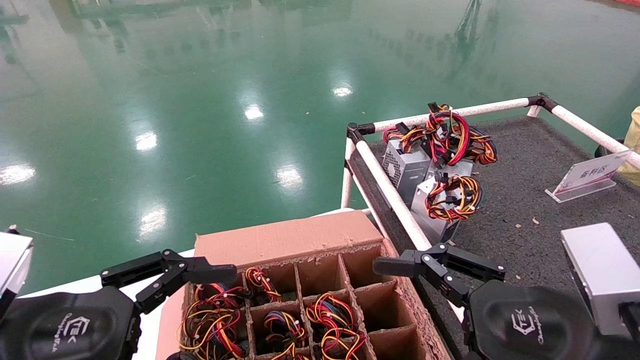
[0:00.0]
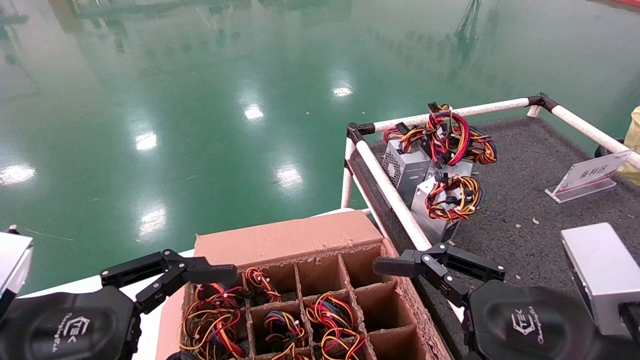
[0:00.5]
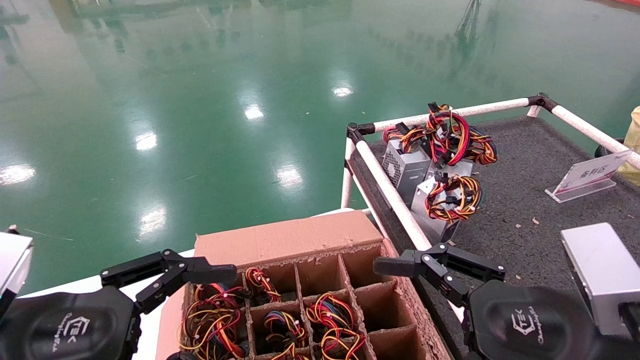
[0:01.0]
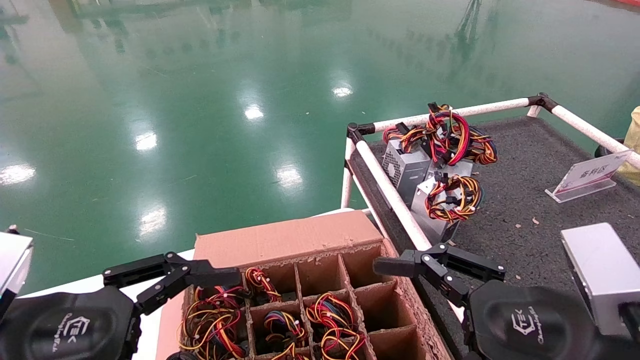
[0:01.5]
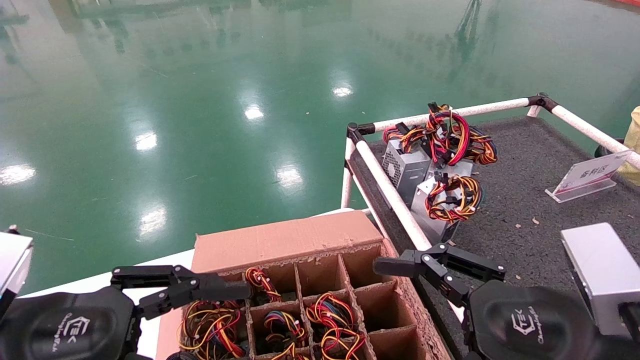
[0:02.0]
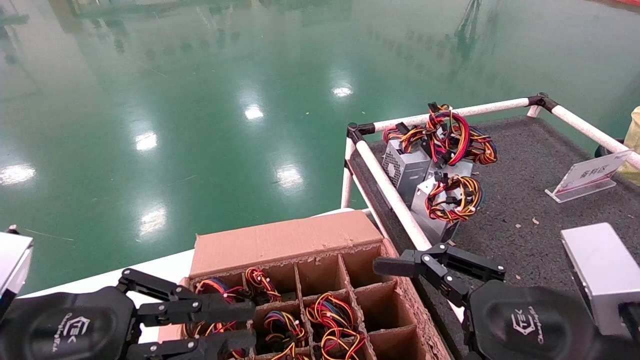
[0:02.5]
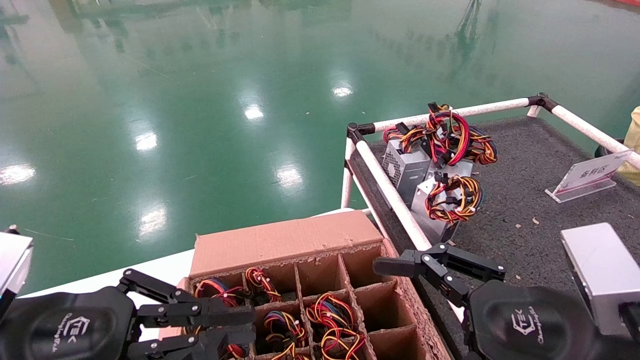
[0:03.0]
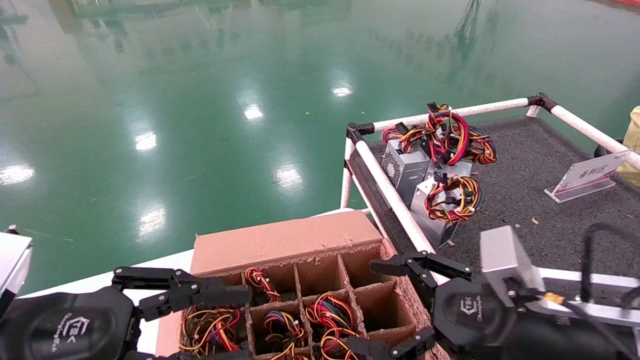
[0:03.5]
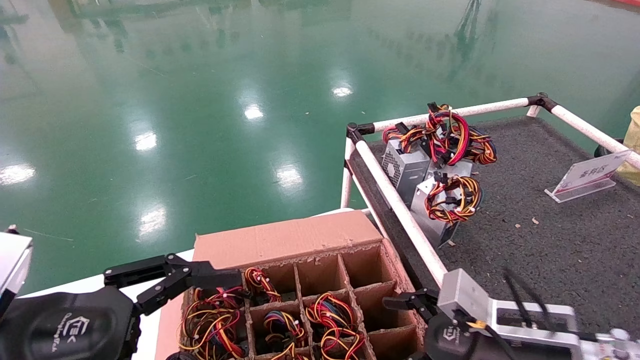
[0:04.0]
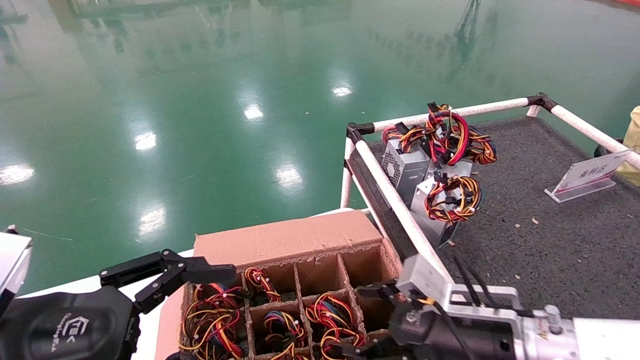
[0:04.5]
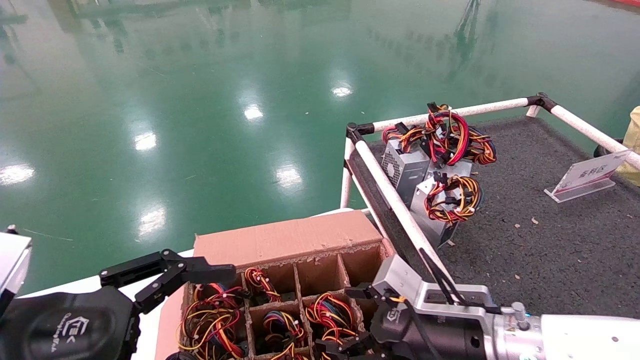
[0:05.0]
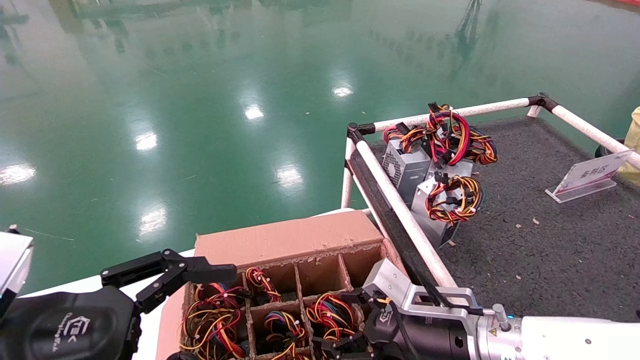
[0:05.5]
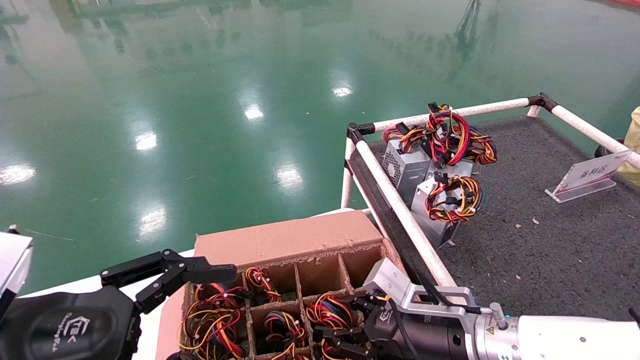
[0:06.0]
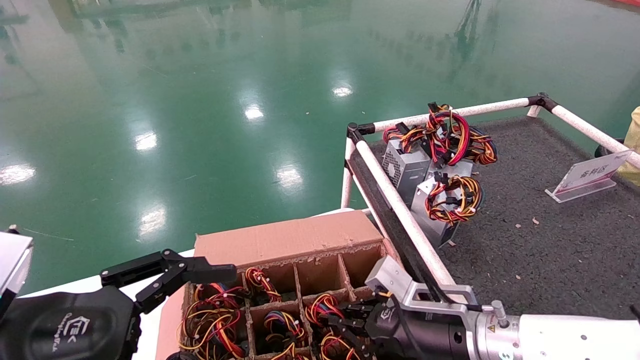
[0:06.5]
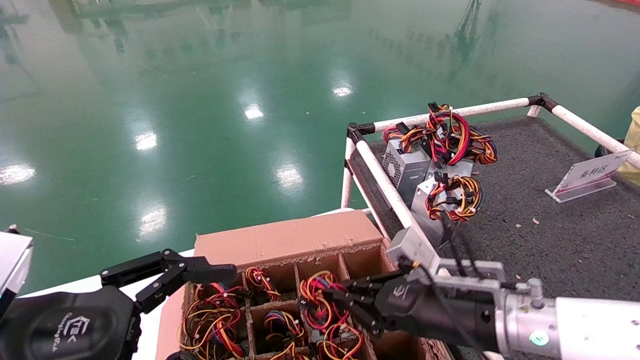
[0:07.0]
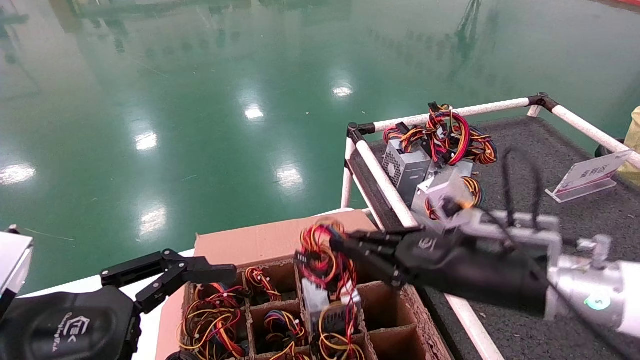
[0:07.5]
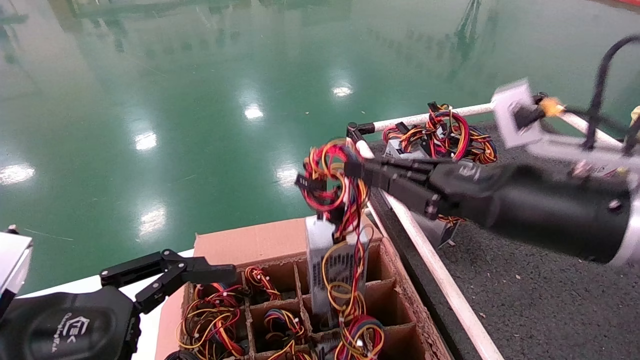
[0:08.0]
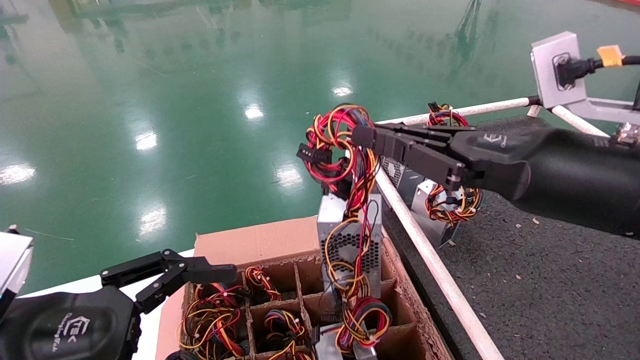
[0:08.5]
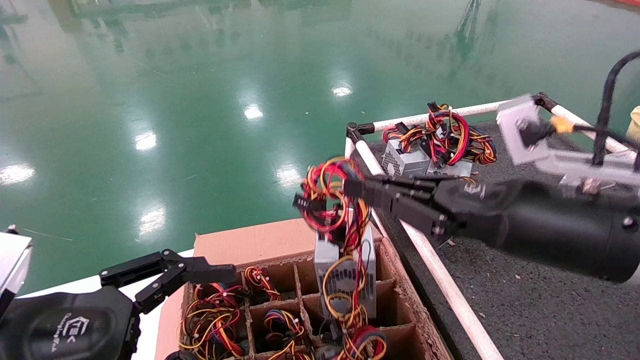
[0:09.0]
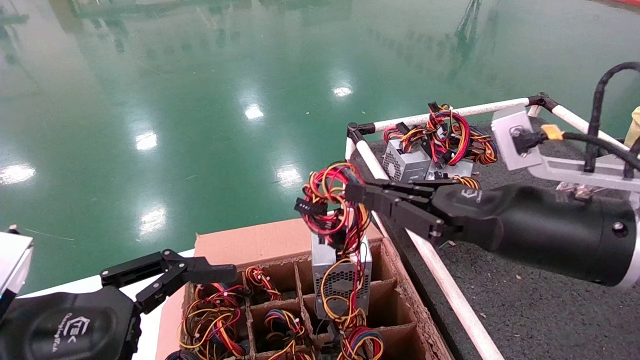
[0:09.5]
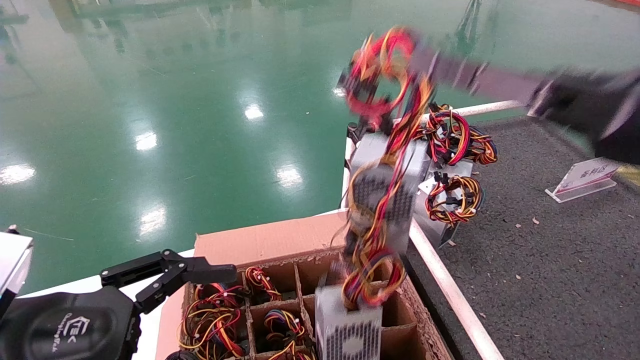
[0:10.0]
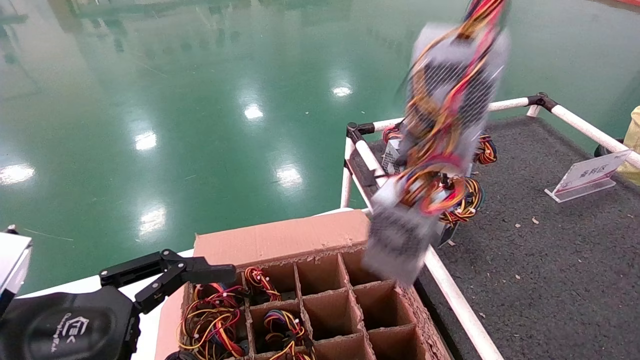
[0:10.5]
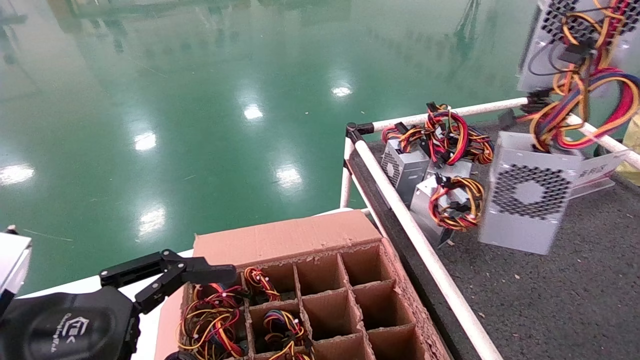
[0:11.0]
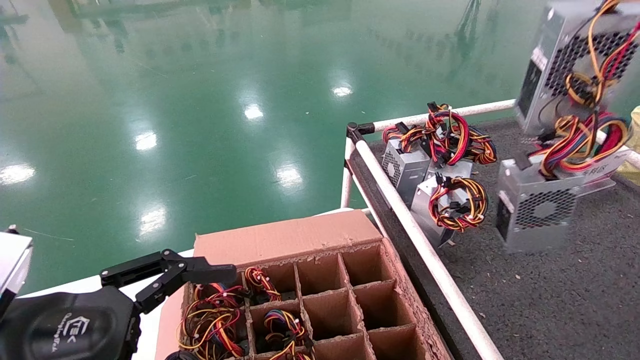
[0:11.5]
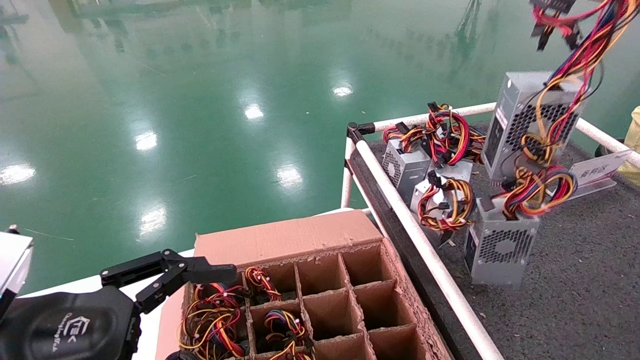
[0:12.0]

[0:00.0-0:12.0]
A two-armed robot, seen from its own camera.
Step, 0:02.5 to 0:07.0: Grab and lift the power supply from the large box.
0:00.0 to 0:02.0: Both grippers stay about where they are.
0:02.0 to 0:04.0: The left gripper closes its fingers.
0:04.0 to 0:06.0: The right gripper is displaced forward, downward and to the left by some 15 cm. The left gripper opens.
0:06.0 to 0:08.0: The right gripper is displaced upward by approximately 10 cm, and closes up.
0:08.0 to 0:10.0: The right gripper heads upward, covering some 5 cm.
0:10.0 to 0:12.0: The right gripper heads to the right and upward, covering some 30 cm.

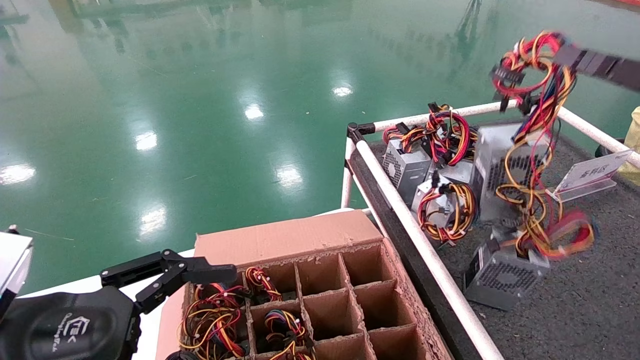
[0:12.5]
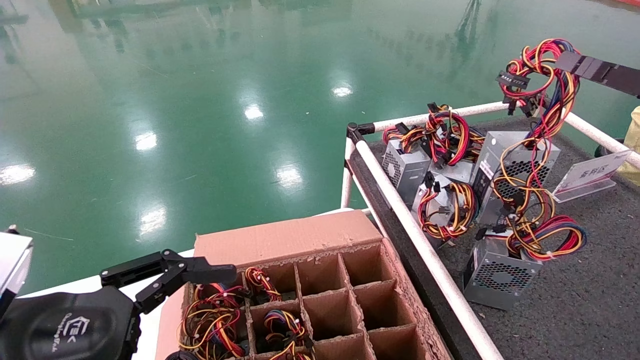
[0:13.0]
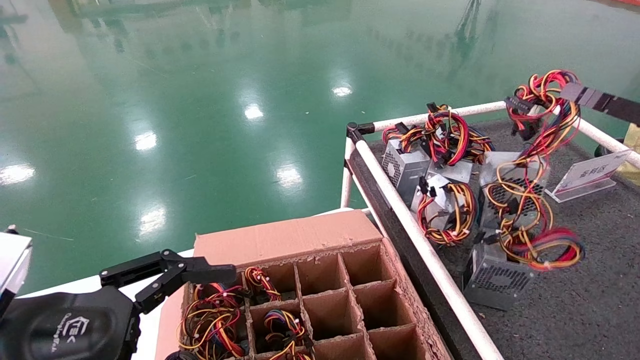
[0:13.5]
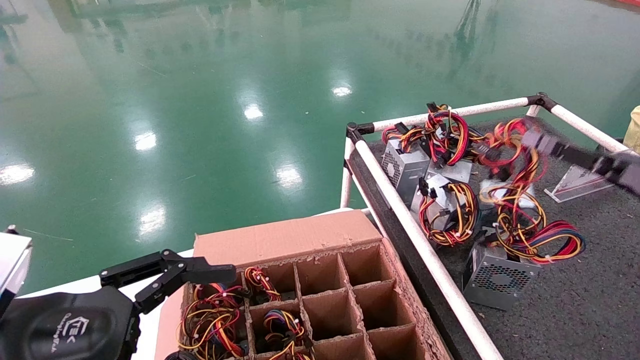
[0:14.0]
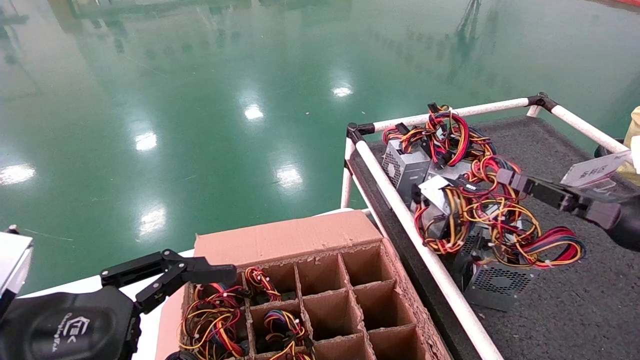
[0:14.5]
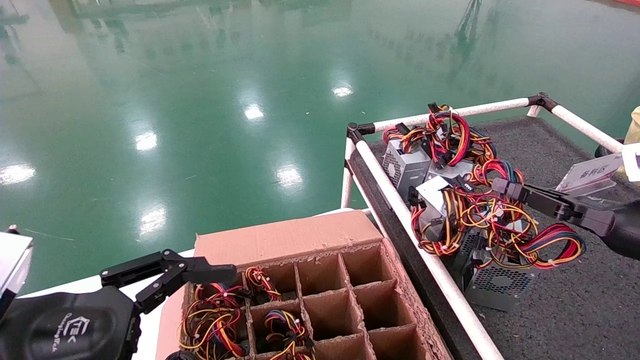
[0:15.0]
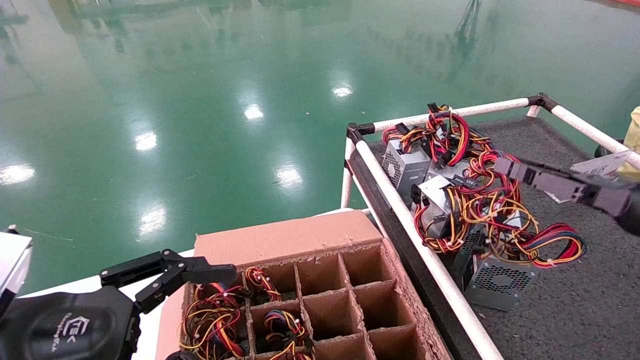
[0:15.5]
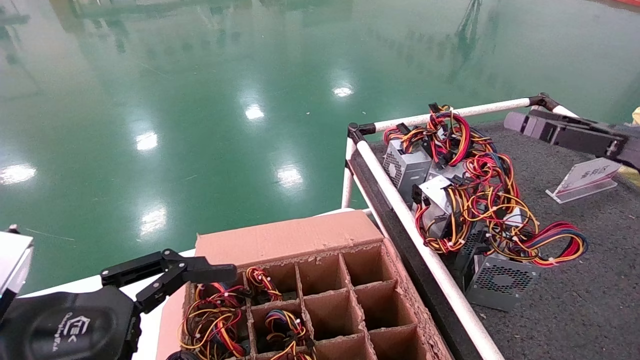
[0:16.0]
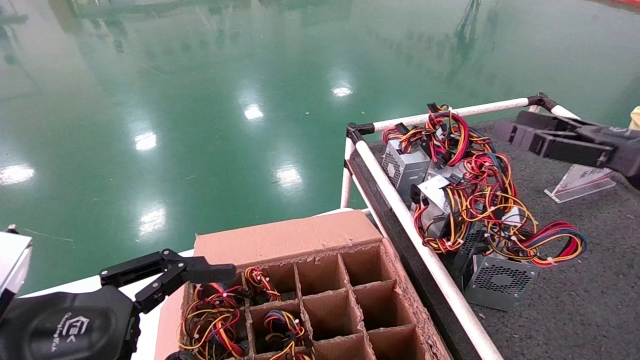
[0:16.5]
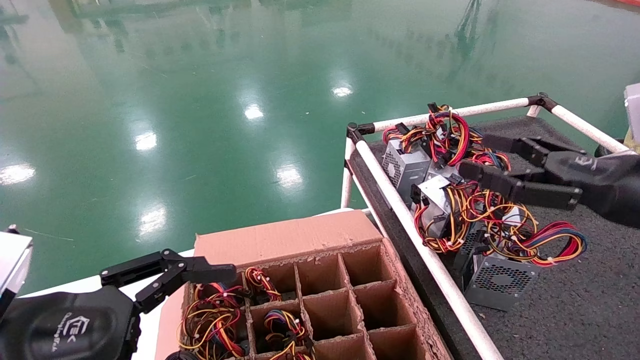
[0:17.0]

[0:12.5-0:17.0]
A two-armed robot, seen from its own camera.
Step, 0:12.5 to 0:16.0: Place the power supply on the operating table.
0:12.5 to 0:14.5: The right gripper travels downward and forward by roughly 15 cm.
0:14.5 to 0:17.0: The right gripper goes downward and returns, some 5 cm each way, and opens up.
